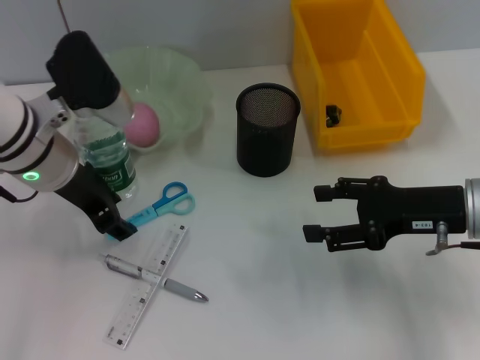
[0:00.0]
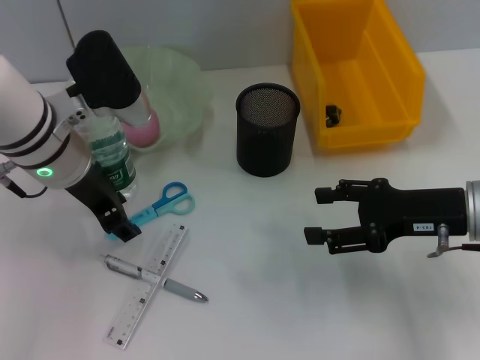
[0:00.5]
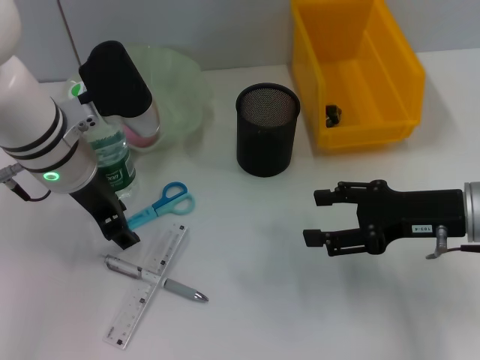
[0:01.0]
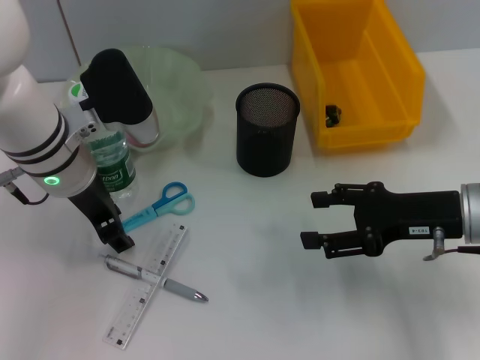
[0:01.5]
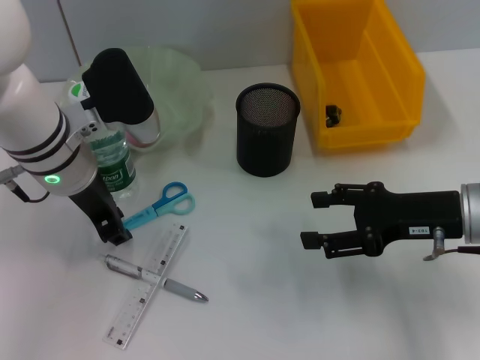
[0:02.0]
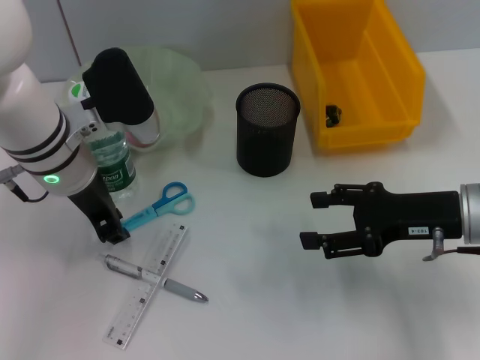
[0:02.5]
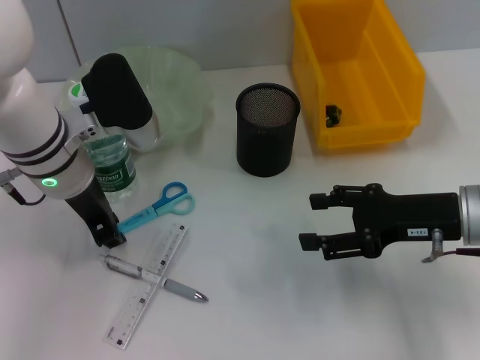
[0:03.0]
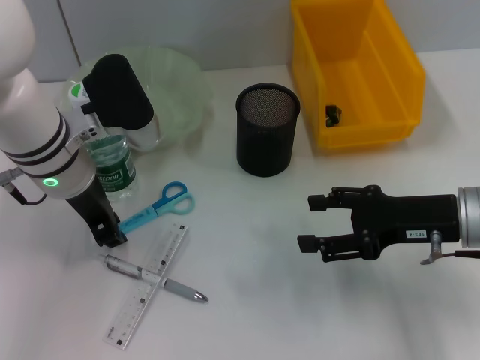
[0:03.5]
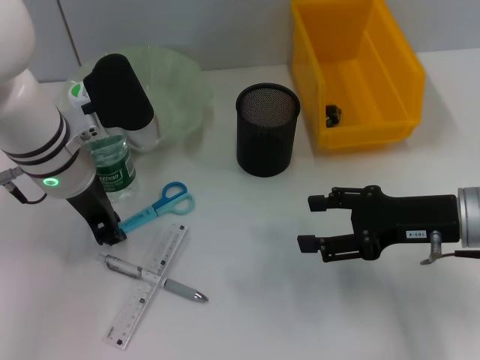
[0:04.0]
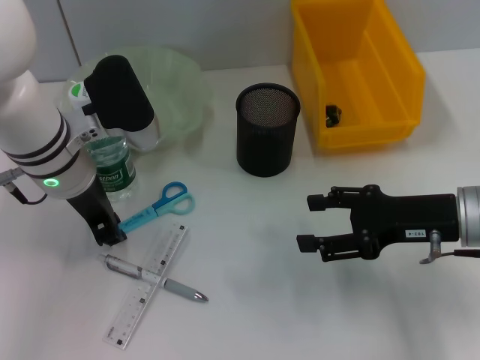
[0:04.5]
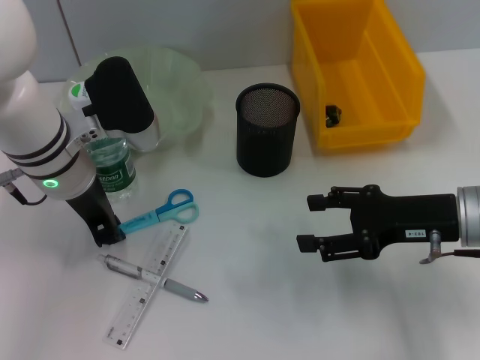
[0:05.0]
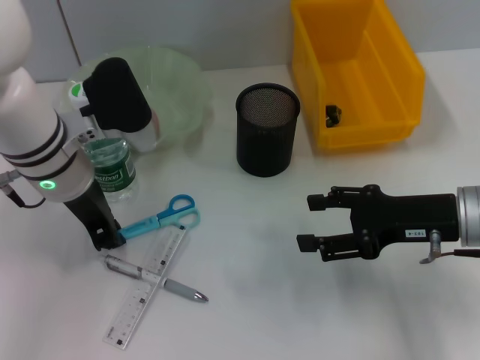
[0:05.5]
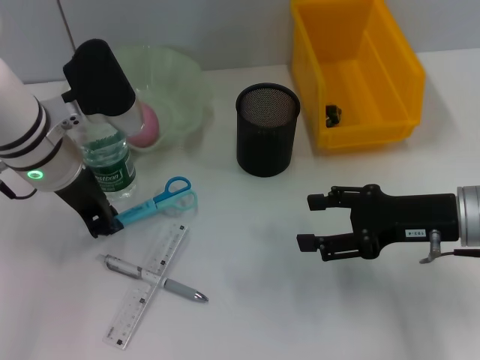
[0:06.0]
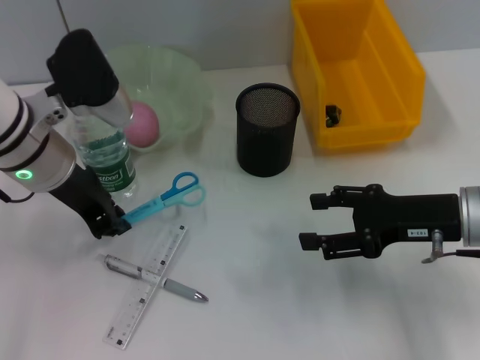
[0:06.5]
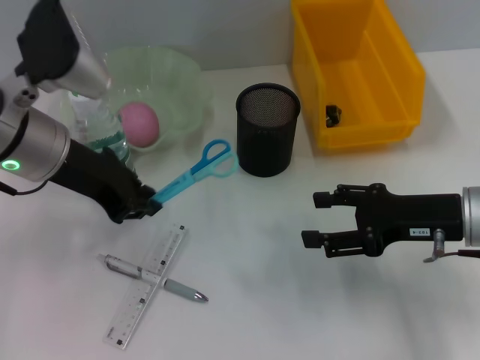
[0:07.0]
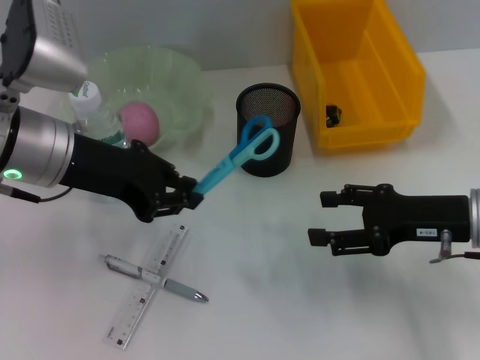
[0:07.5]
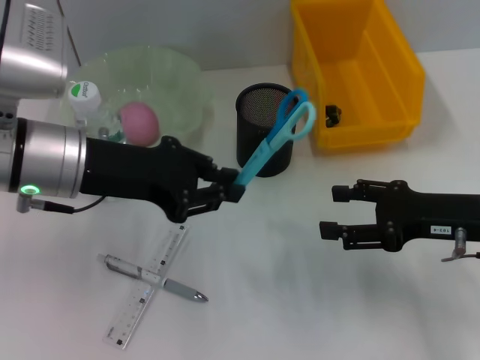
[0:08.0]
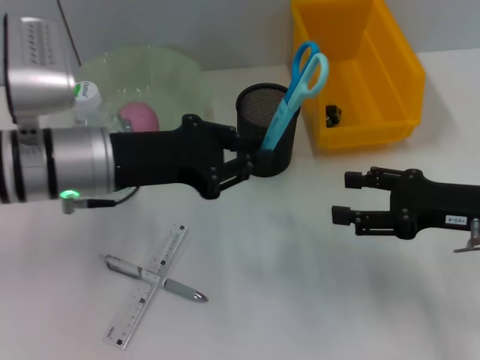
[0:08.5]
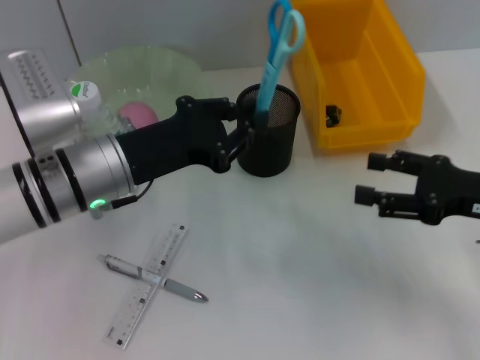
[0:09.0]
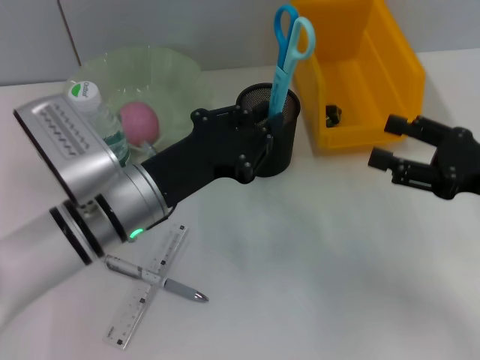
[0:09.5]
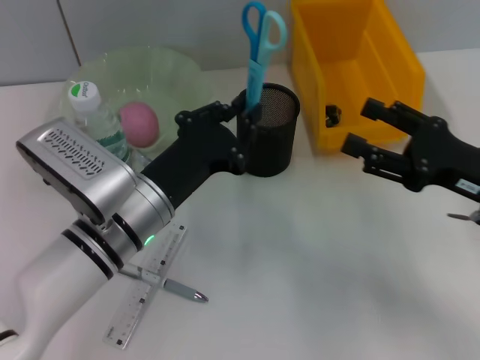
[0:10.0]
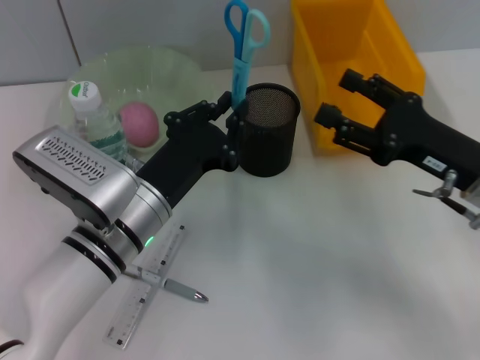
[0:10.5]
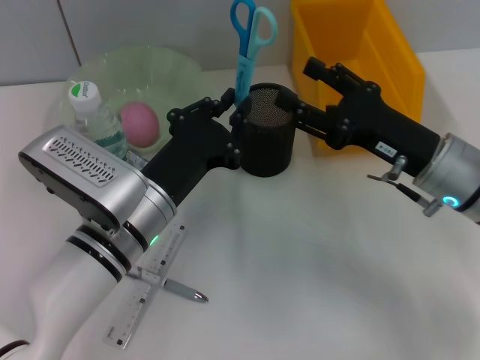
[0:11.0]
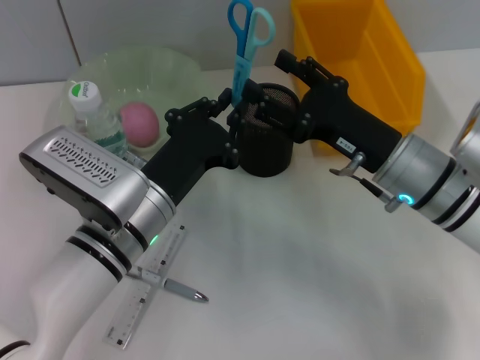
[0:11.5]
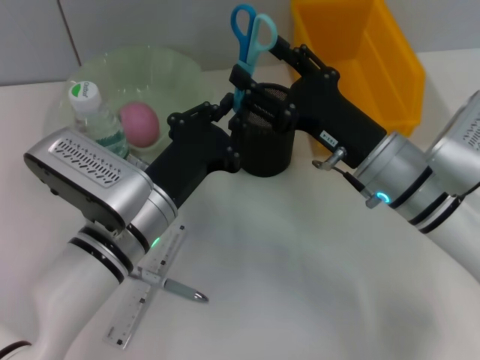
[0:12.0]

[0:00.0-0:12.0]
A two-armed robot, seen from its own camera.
Step, 0:00.0 to 0:05.5: Grab the blue scissors with the left hand.
0:00.0 to 0:02.0: The grippers stay close to where they were, moving slightly.
0:02.0 to 0:04.0: The two grippers keep their place.
0:04.0 to 0:06.0: There are only small adjustments of the grippers.
0:06.0 to 0:08.0: The left gripper ends up roughly 5 cm from where it was.
0:08.0 to 0:10.0: The left gripper moves downward and to the right, some 10 cm.
0:10.0 to 0:12.0: The right gripper shifts about 10 cm to the left.

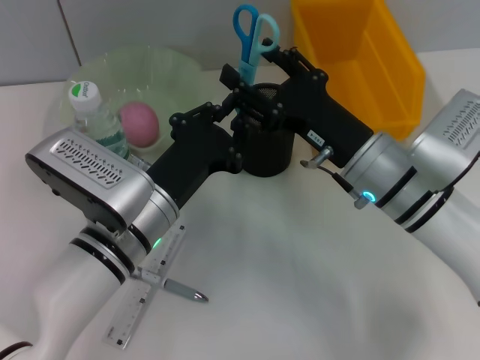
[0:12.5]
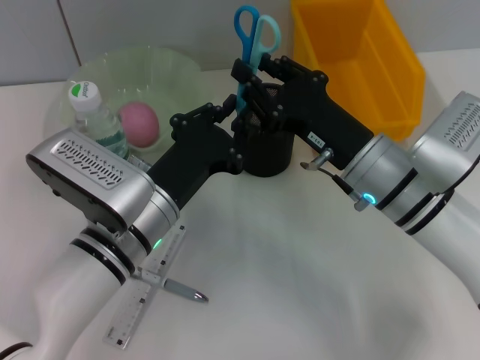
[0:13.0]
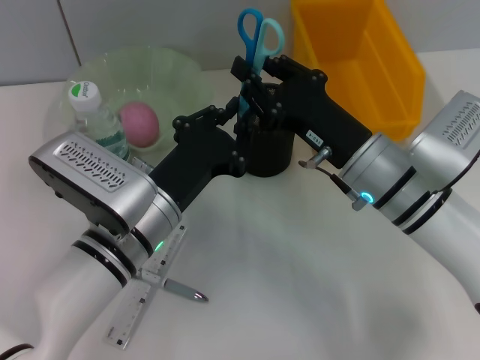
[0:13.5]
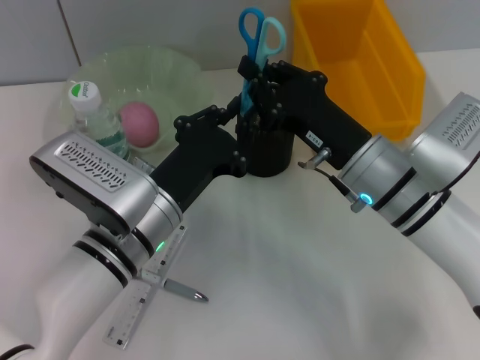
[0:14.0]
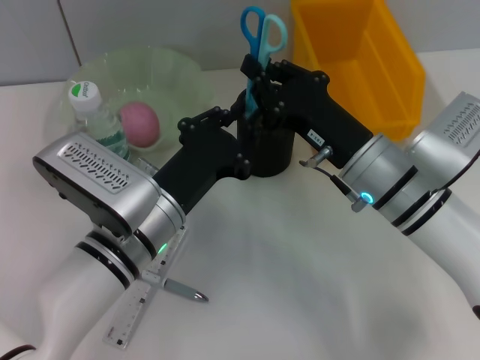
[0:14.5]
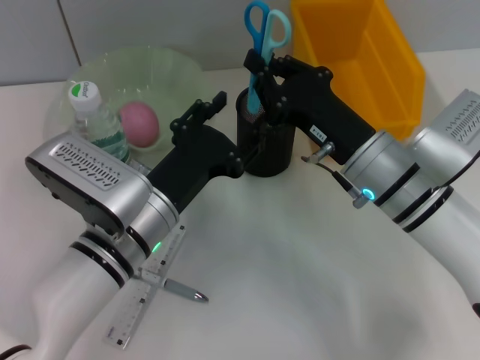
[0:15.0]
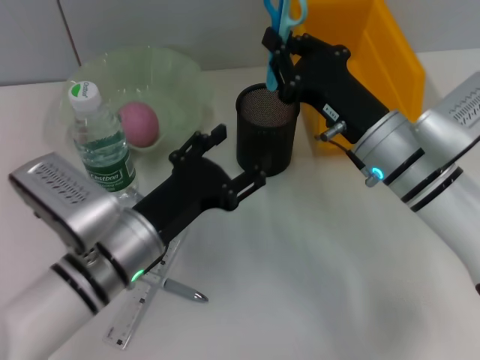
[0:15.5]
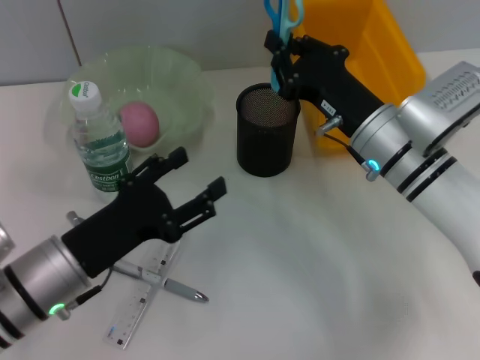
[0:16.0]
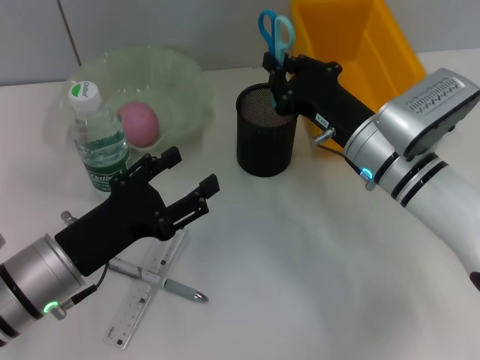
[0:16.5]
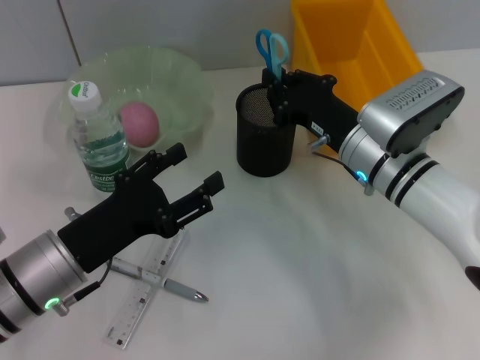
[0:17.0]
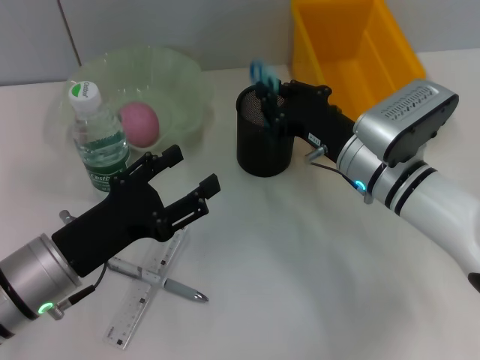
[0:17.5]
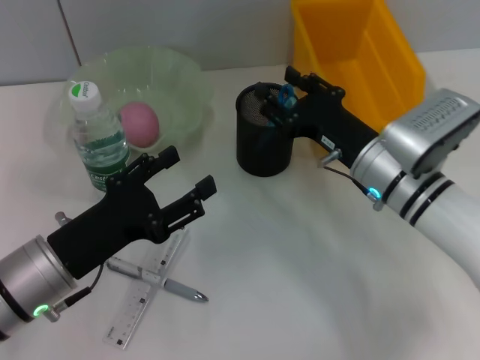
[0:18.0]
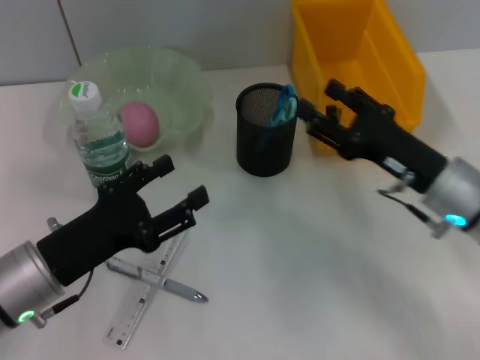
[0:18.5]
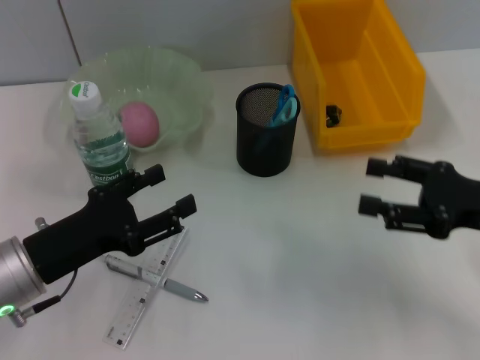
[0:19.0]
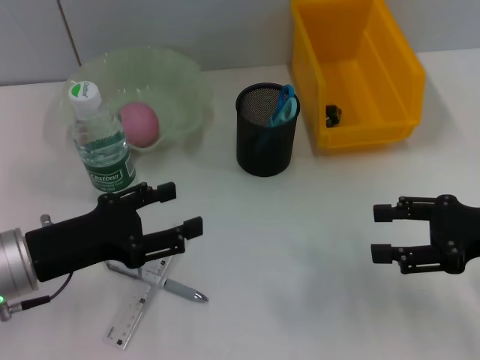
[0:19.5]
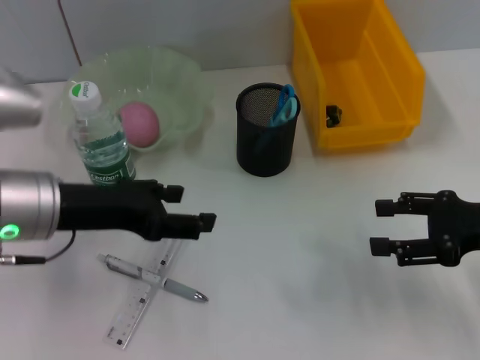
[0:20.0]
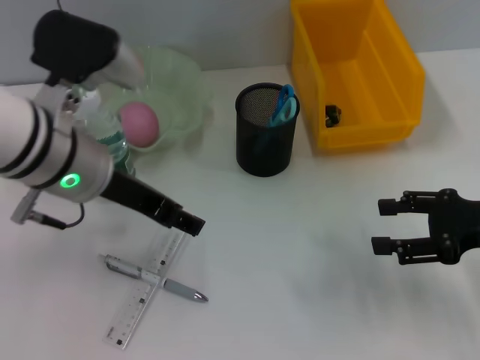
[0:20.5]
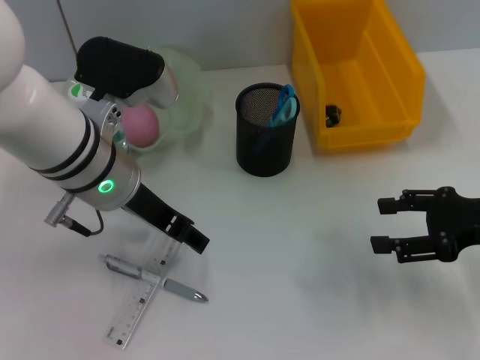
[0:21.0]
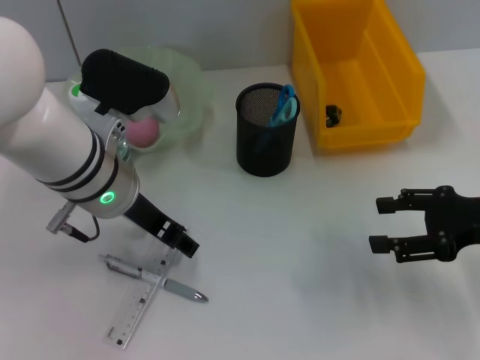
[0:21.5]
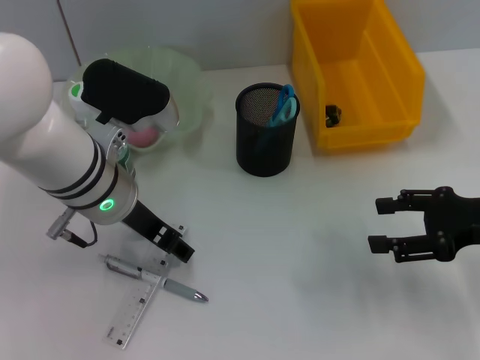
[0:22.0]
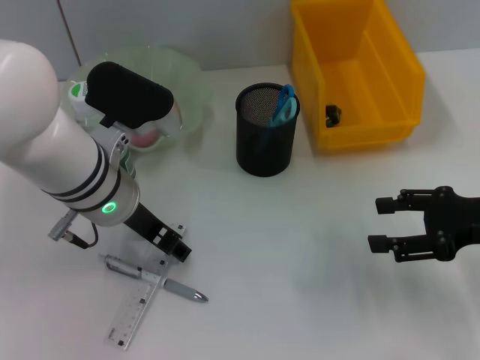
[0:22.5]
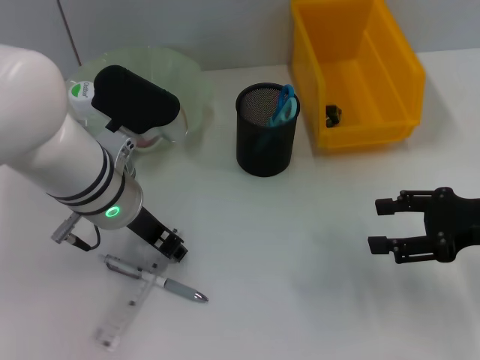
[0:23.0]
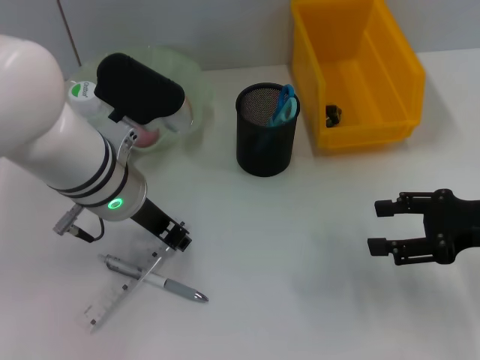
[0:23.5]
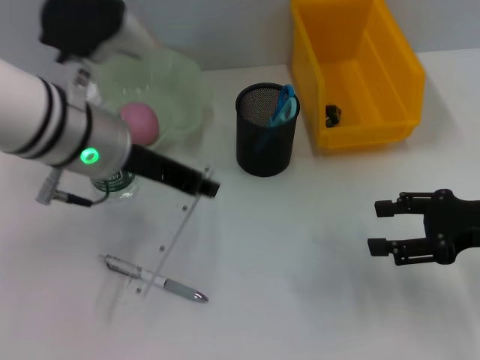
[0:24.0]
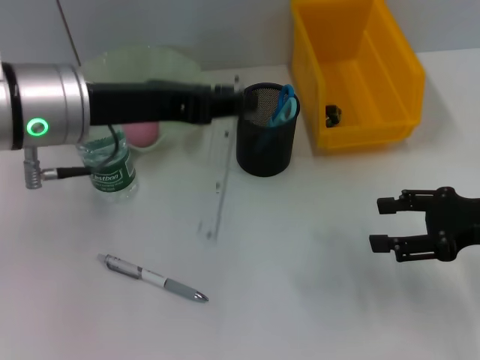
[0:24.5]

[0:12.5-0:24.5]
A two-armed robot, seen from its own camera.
Step, 0:12.5 to 0:14.5: Pass the blue scissors from the left hand to the right hand.
Step, 0:15.0 to 0:18.0: Place the blue scissors into the pen holder with the right hand.
Step, 0:18.5 to 0:23.0: Grab the ruler with the left hand.
0:12.5 to 0:14.5: The right gripper closes.
0:14.5 to 0:16.5: The left gripper moves to the left, roughly 10 cm, and opens.
0:16.5 to 0:18.5: The right gripper heads to the right and backward, covering some 10 cm, and opens its fingers.
0:18.5 to 0:20.5: The left gripper moves upward, forward and to the right, approximately 15 cm; the right gripper moves to the right, about 10 cm.
0:20.5 to 0:22.5: The left gripper goes roughly 5 cm downward.
0:22.5 to 0:24.5: The left gripper is displaced upward by approximately 10 cm, and closes its fingers.

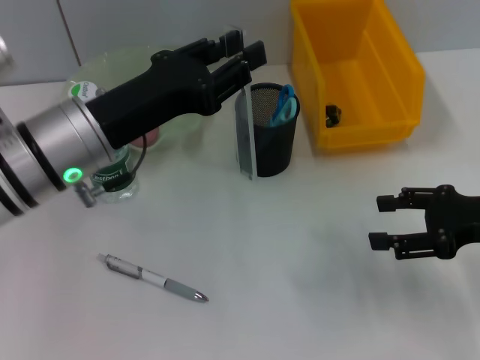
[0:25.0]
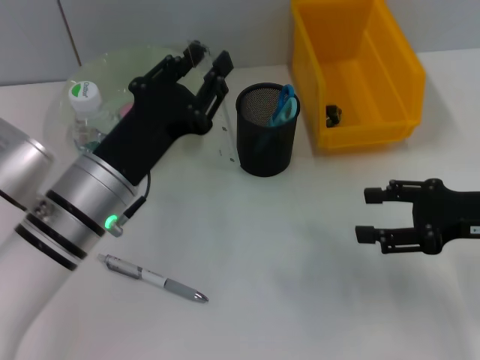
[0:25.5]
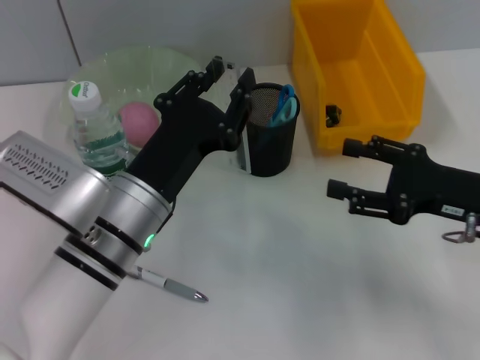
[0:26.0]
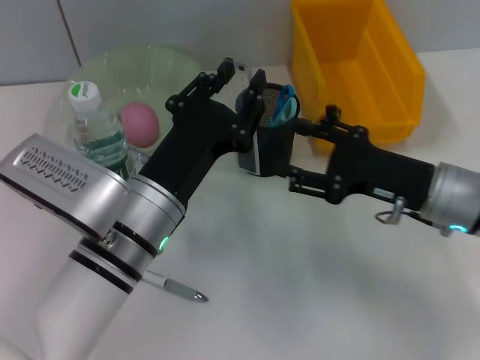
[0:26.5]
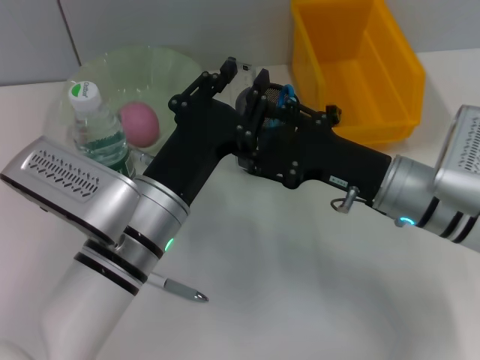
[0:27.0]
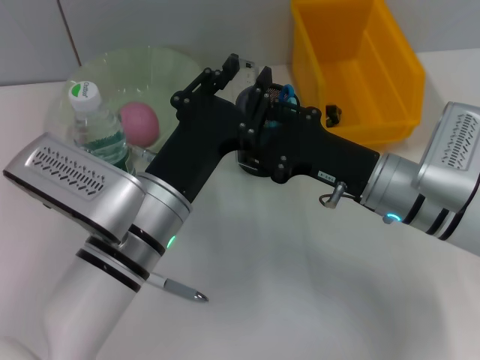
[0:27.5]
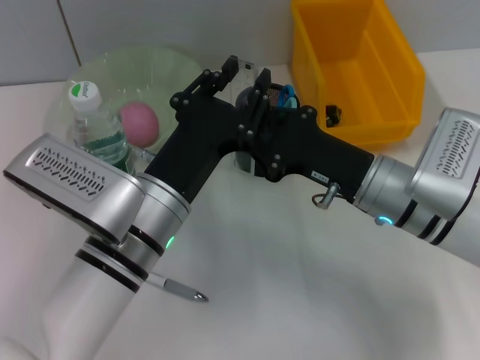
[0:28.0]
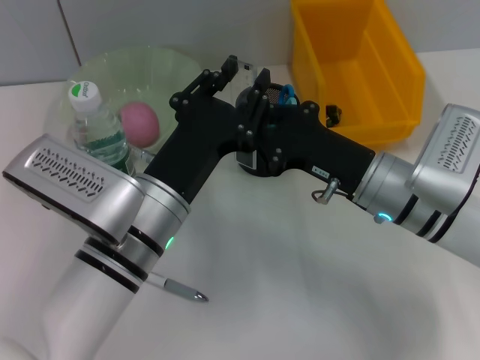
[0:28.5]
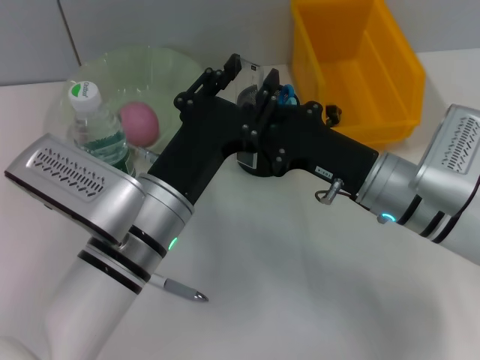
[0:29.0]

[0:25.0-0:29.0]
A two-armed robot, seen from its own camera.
Step, 0:25.0 to 0:28.5: Pass the ruler from the left hand to the right hand.
0:25.0 to 0:27.0: The left gripper travels downward and to the right by approximately 10 cm; the right gripper goes about 15 cm to the left.
0:27.0 to 0:29.0: The right gripper closes its fingers.
